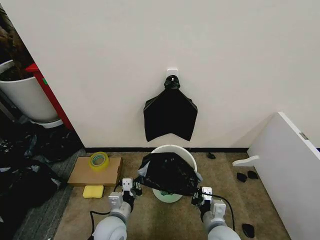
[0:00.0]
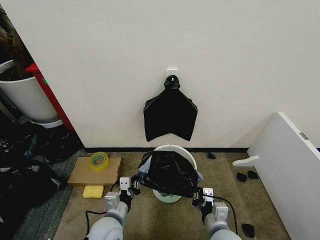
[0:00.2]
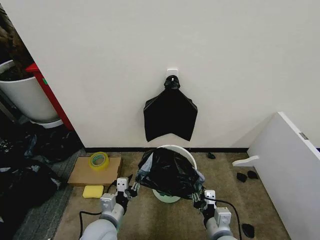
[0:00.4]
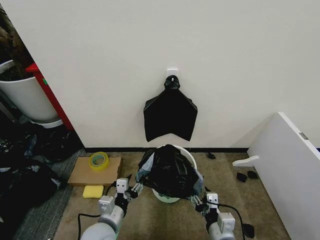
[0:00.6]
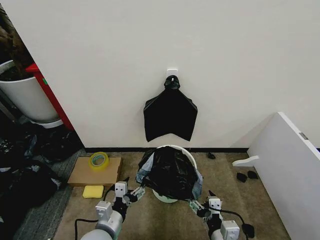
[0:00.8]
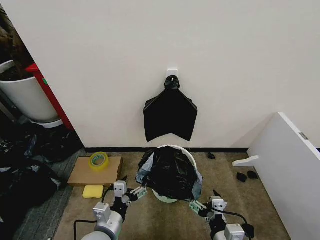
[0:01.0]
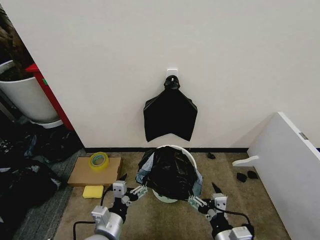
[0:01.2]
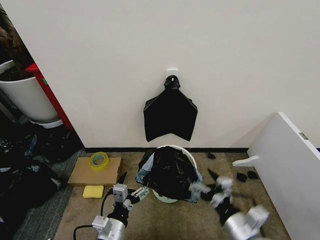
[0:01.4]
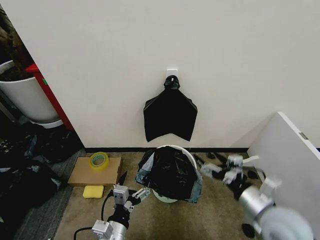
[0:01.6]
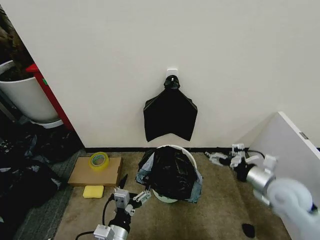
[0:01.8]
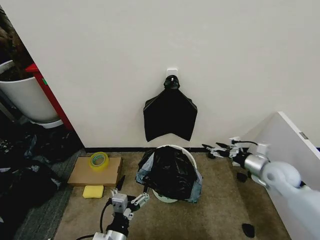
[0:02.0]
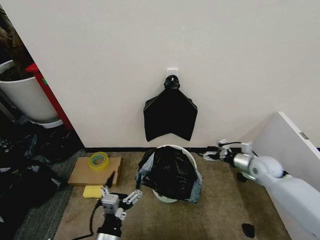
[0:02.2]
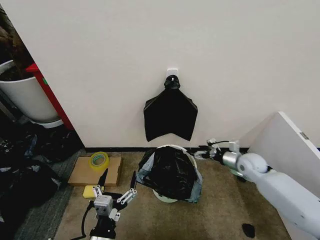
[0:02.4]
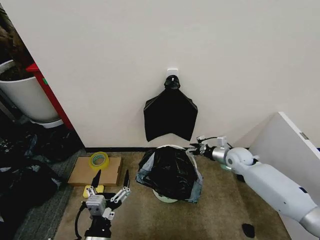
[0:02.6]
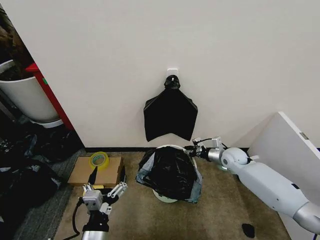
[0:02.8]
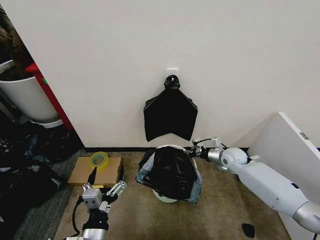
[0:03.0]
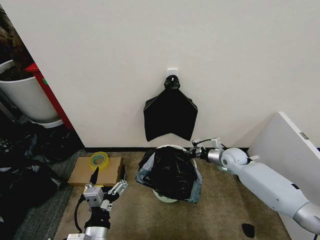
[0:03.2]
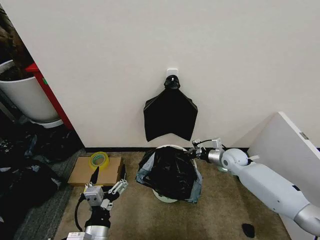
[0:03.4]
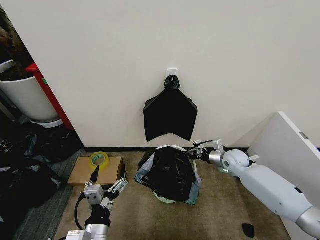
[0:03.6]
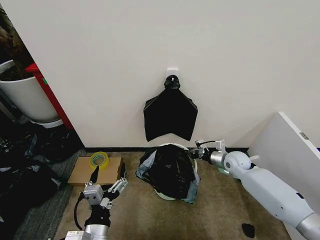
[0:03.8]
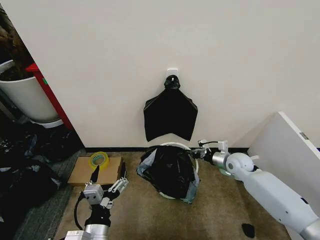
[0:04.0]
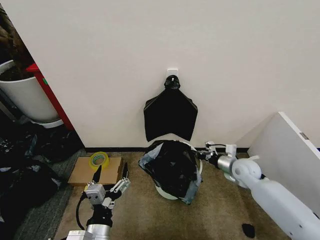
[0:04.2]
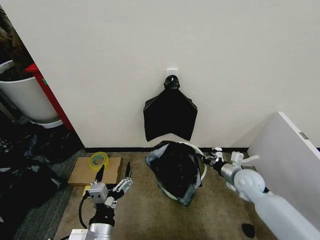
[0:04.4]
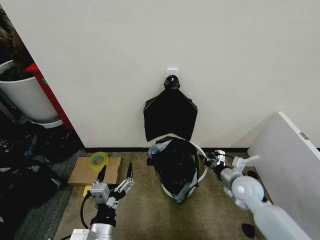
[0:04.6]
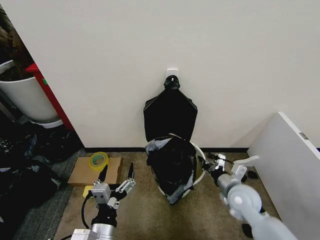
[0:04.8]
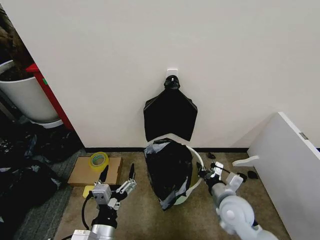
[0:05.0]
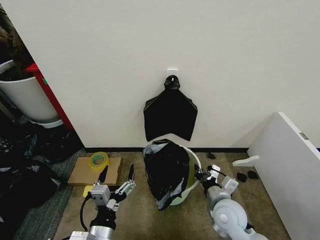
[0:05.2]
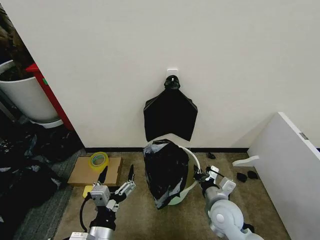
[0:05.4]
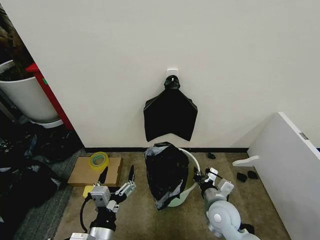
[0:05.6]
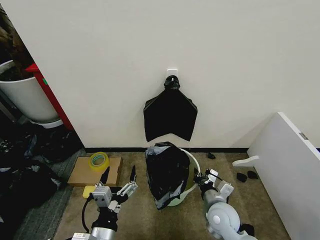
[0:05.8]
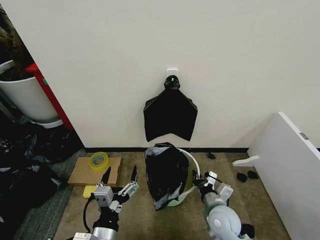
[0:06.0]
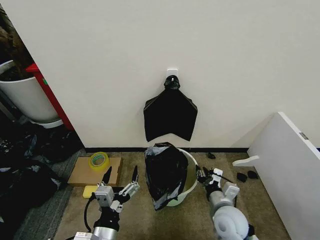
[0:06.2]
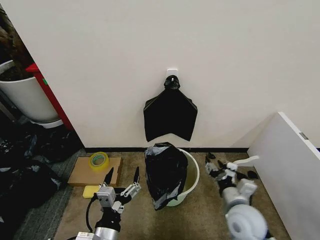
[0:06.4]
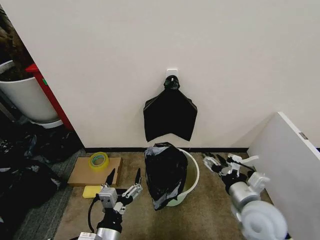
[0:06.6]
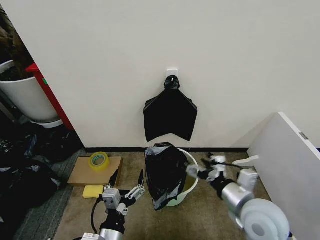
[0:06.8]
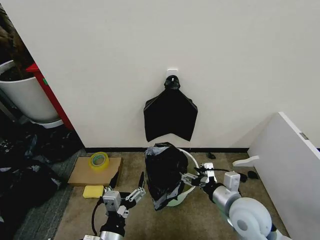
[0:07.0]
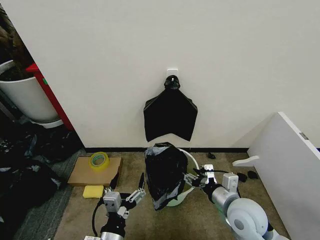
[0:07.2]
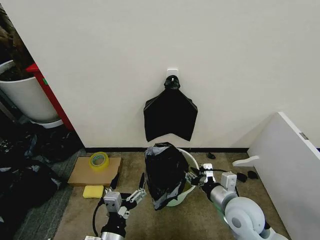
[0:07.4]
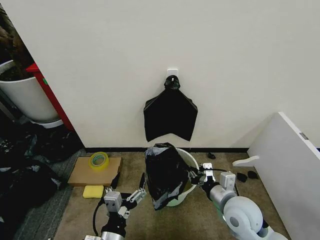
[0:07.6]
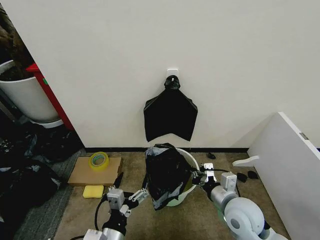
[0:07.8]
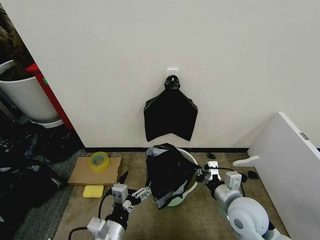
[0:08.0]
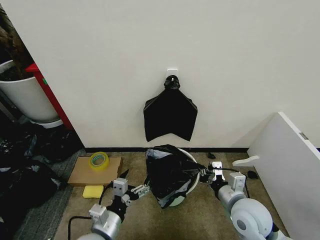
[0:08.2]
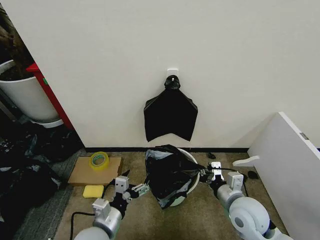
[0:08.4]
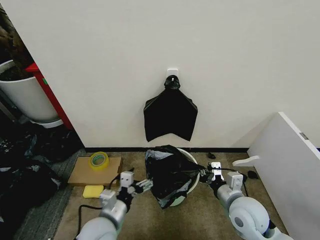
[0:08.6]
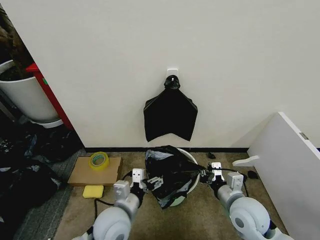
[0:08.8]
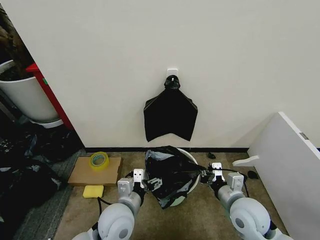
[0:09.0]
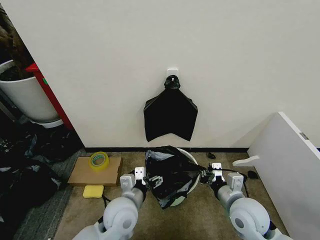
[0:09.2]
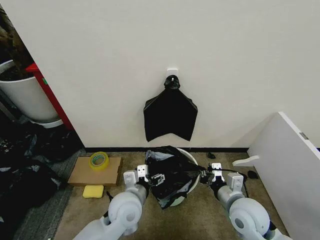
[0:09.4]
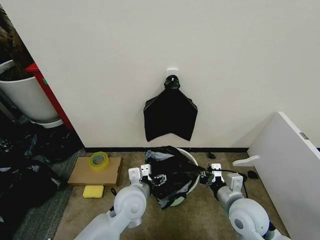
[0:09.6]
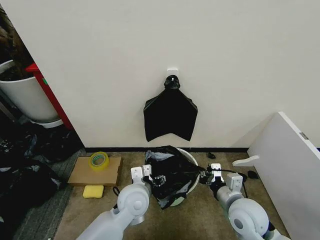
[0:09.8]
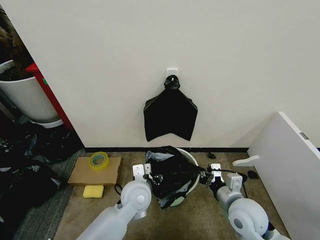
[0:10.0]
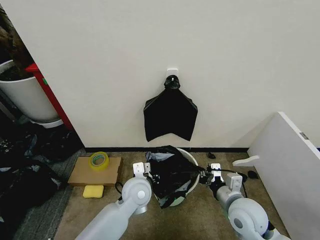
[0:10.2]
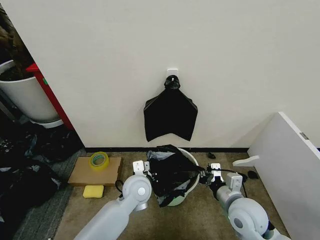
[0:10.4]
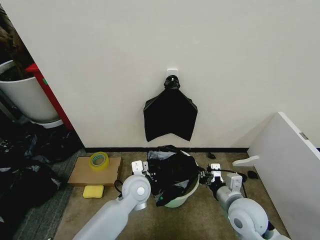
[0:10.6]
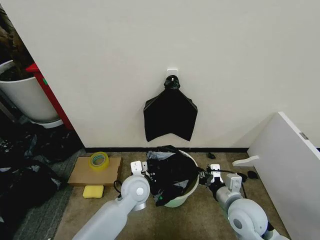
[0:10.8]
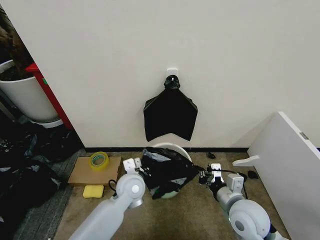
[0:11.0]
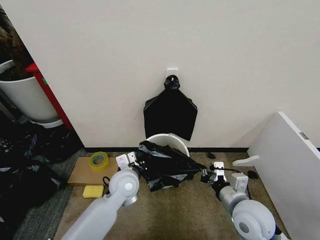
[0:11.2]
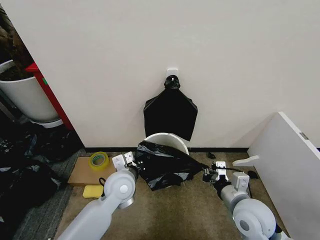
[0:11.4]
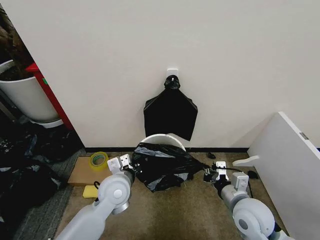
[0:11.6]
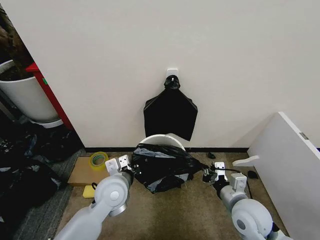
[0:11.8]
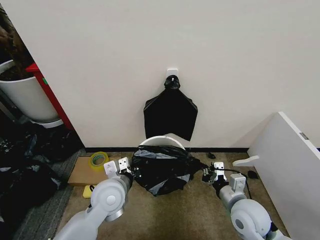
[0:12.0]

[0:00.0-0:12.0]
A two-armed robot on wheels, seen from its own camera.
Task of the whole recording: Place the garbage bag over the trash bin.
0:00.0 to 0:01.6: The right gripper moves upward and to the right, approximately 20 cm, and opens up. The left gripper goes approximately 10 cm backward and upward, and opens its fingers.
0:01.6 to 0:03.0: The right gripper is displaced forward and downward by approximately 30 cm, and closes up.
0:03.0 to 0:04.4: The right gripper travels backward by approximately 10 cm, and closes.
0:04.4 to 0:06.0: The right gripper shifts some 20 cm backward and to the left.
0:06.0 to 0:07.6: The right gripper is displaced upward by roughly 10 cm, and opens, then closes again.
0:07.6 to 0:09.0: The left gripper heads forward, covering approximately 15 cm.
0:09.0 to 0:10.4: The left gripper shifts about 10 cm forward, and closes its fingers.
0:10.4 to 0:12.0: The left gripper shifts about 10 cm to the left.

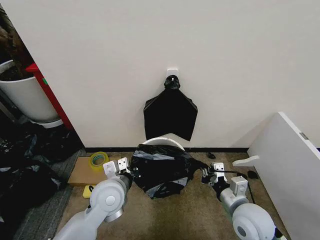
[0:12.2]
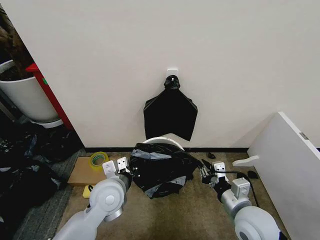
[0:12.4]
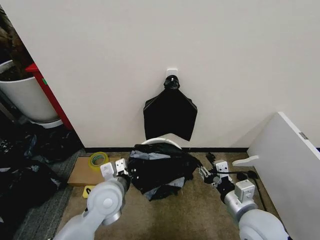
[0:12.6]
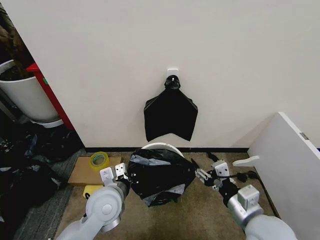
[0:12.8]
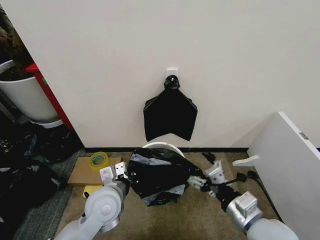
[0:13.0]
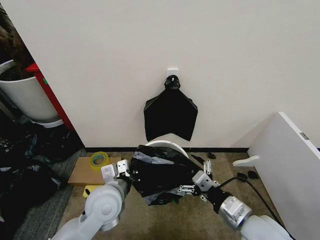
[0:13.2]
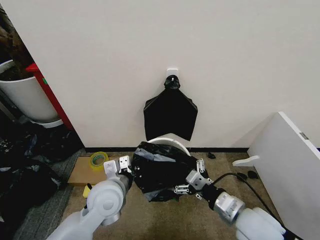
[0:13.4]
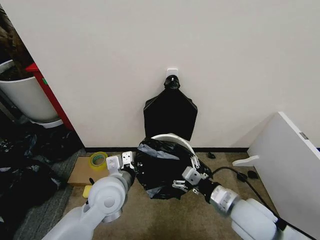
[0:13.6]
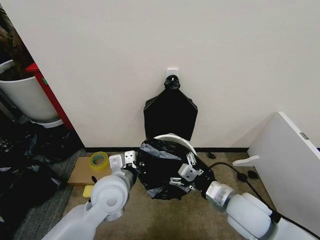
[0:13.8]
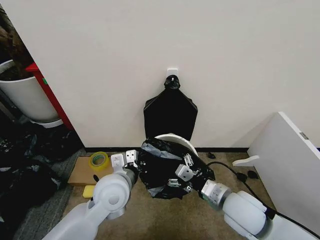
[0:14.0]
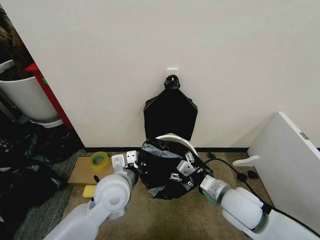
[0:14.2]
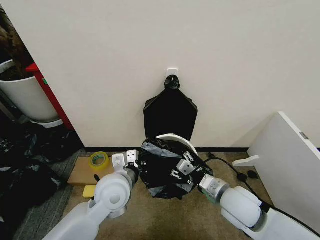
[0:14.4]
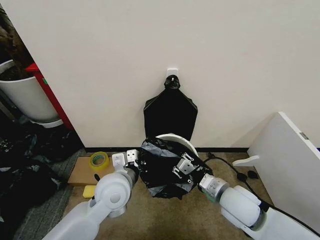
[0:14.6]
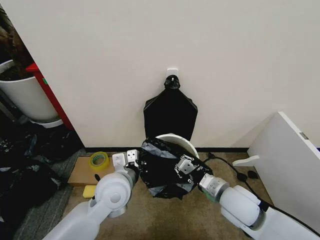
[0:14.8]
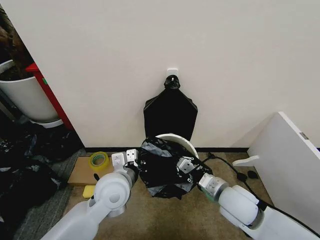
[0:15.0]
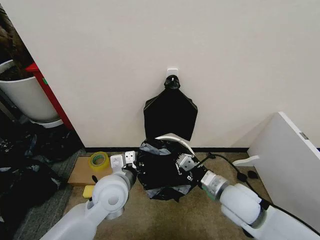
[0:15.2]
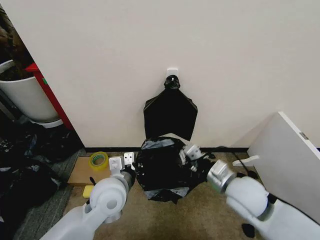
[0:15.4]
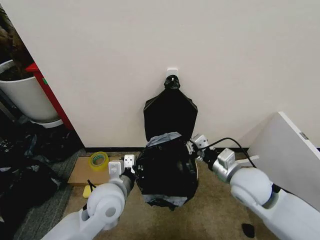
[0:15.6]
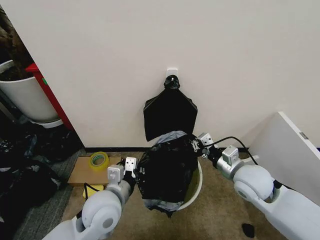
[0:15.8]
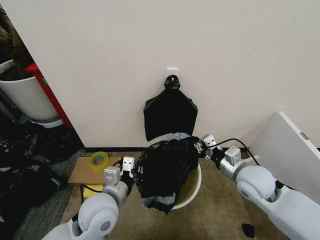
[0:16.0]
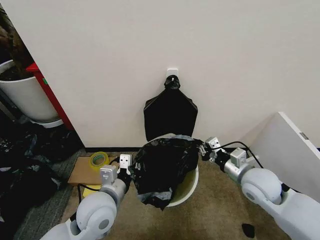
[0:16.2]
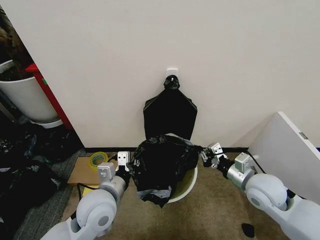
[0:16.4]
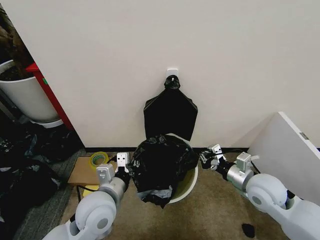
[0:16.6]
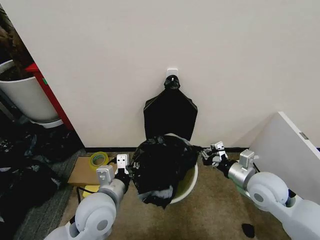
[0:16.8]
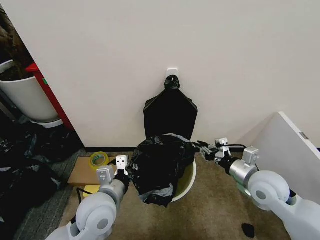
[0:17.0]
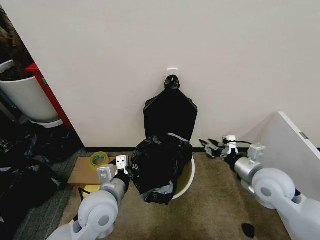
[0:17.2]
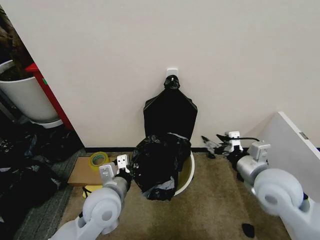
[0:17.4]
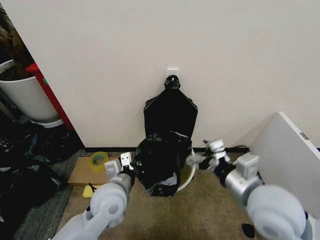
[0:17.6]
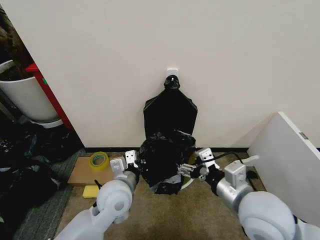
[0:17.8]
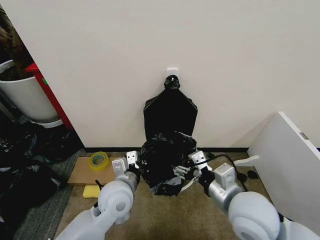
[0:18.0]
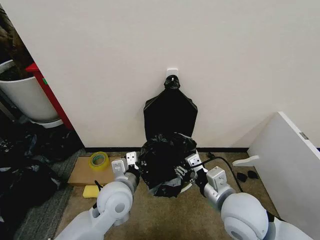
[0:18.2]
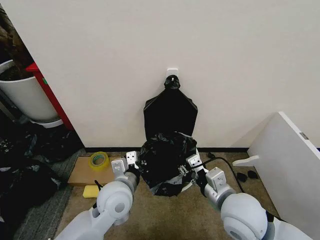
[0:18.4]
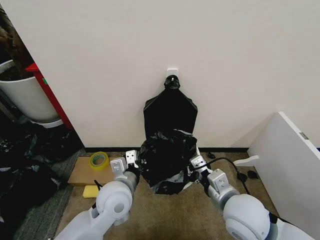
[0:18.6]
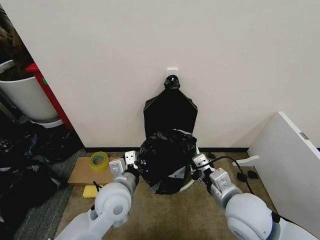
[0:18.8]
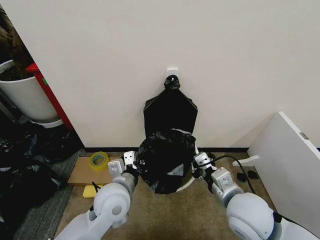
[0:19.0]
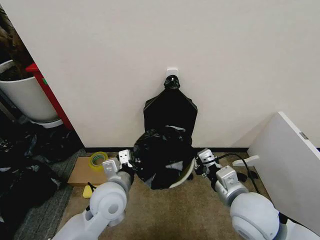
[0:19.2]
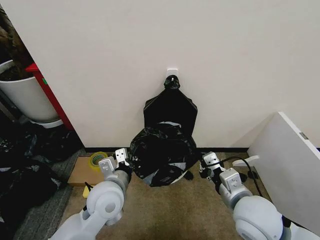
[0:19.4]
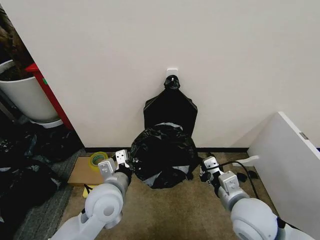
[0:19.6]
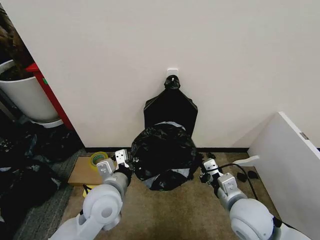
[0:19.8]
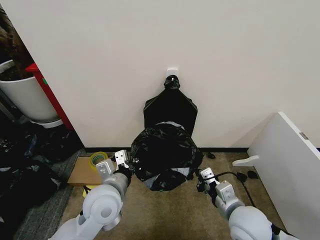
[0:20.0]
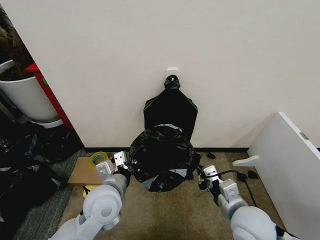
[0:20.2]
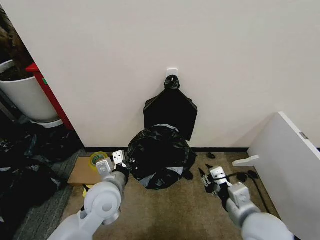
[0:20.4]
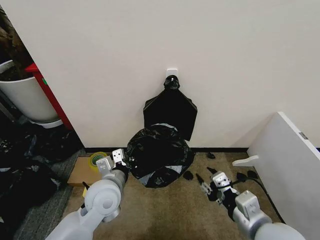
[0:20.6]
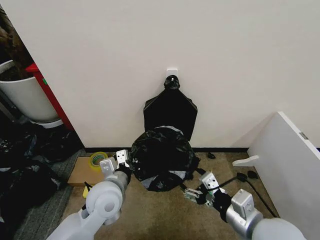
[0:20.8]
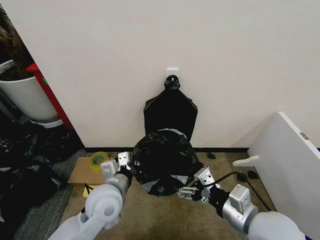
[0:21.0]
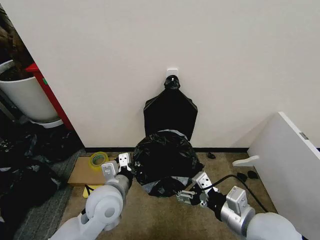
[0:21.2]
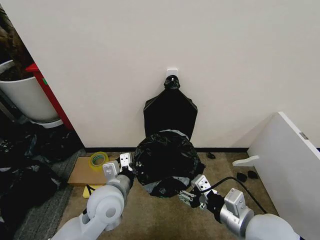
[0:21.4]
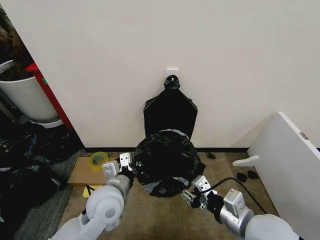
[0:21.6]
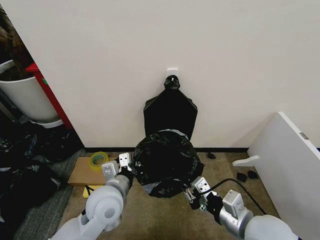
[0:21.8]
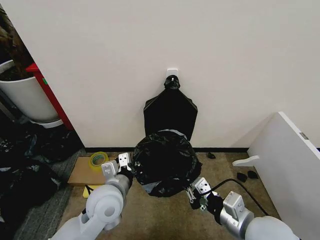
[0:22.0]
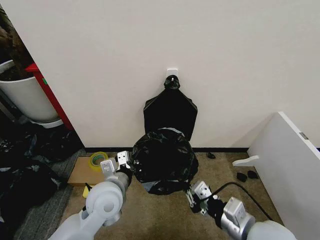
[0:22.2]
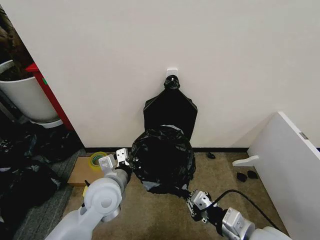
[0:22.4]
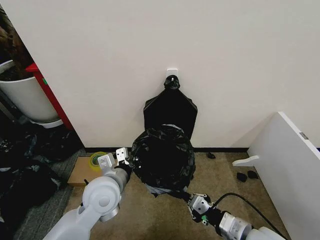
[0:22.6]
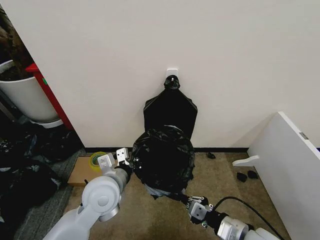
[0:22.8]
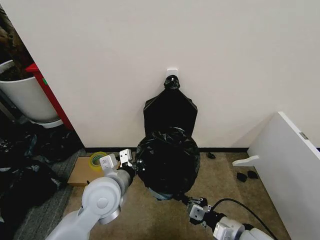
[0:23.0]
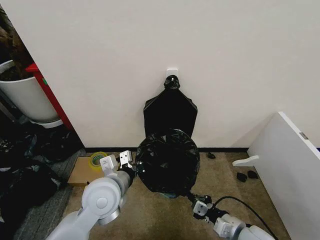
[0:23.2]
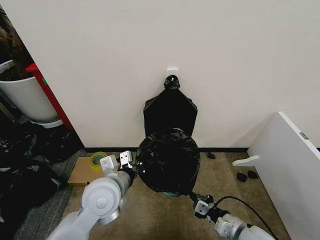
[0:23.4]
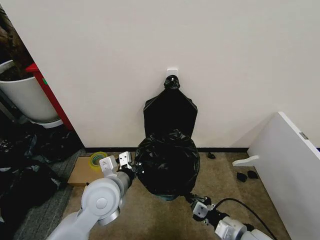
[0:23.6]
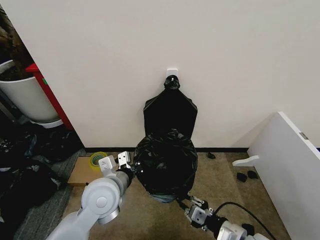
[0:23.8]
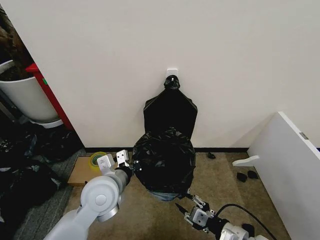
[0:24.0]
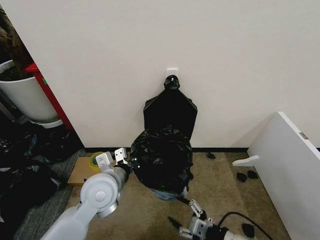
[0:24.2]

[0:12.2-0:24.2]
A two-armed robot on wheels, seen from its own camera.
Task of the whole recording: Place the garbage bag over the trash bin.
0:12.2 to 0:13.8: The right gripper heads upward, covering some 5 cm, and opens up.
0:13.8 to 0:15.2: The right gripper closes its fingers.
0:15.2 to 0:16.6: The left gripper ends up roughly 5 cm from where it was. The right gripper is displaced to the right by some 10 cm.
0:16.6 to 0:18.2: The left gripper shifts by some 5 cm. The right gripper heads to the left and backward, covering roughly 15 cm, and opens up.
0:18.2 to 0:19.8: The right gripper travels downward by roughly 5 cm, and closes its fingers.
0:19.8 to 0:21.2: The right gripper shifts roughly 10 cm upward and backward, and opens up.
0:21.2 to 0:22.6: The right gripper travels downward by about 5 cm, and closes.
0:22.6 to 0:24.2: The right gripper travels downward by some 5 cm, and opens.
